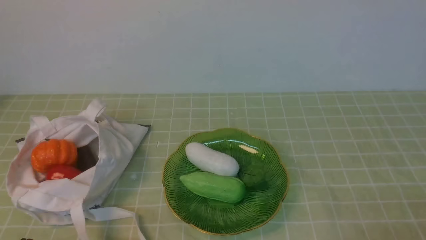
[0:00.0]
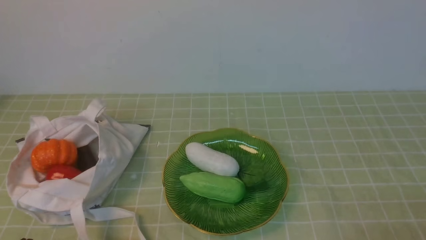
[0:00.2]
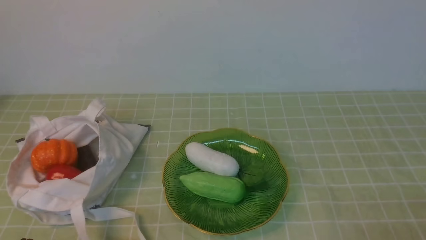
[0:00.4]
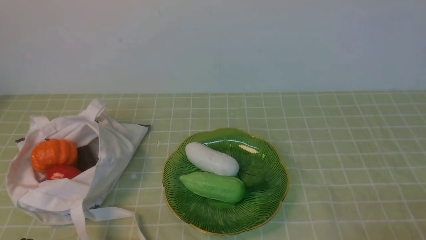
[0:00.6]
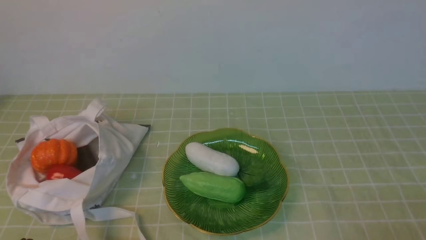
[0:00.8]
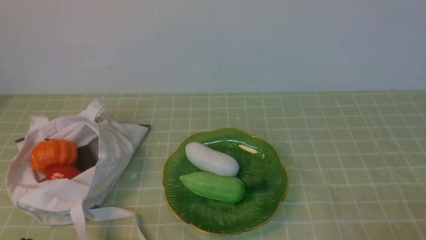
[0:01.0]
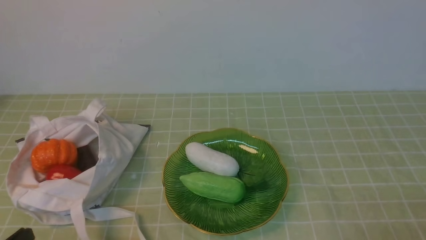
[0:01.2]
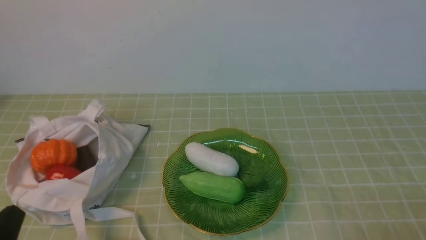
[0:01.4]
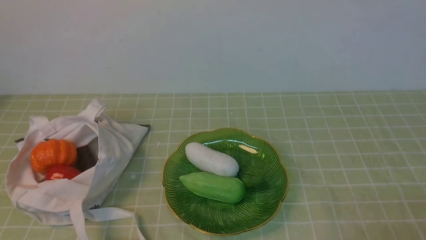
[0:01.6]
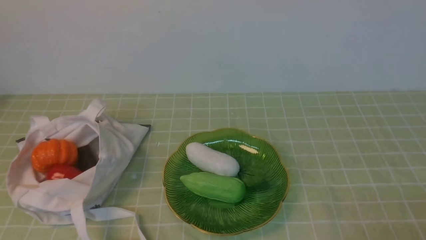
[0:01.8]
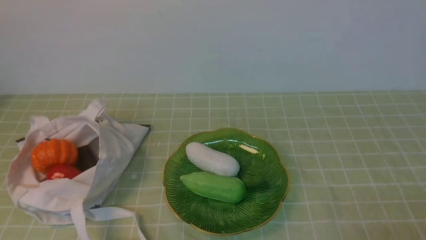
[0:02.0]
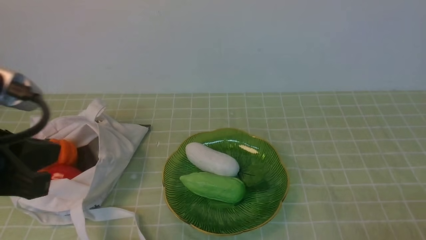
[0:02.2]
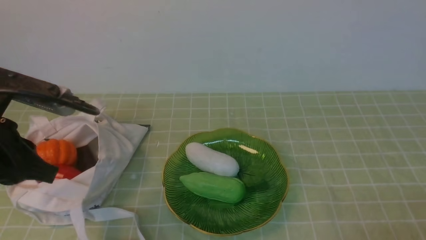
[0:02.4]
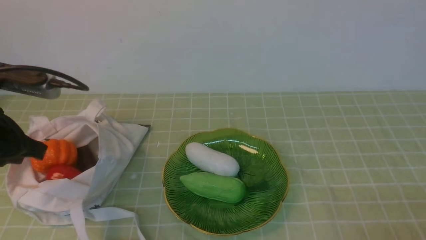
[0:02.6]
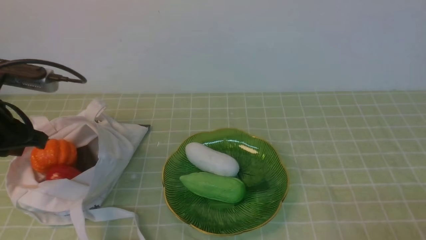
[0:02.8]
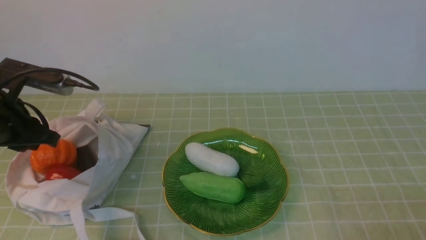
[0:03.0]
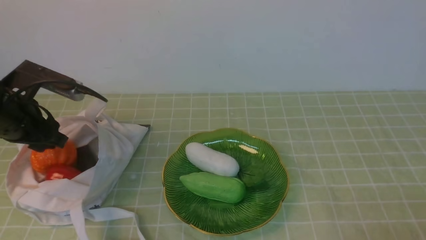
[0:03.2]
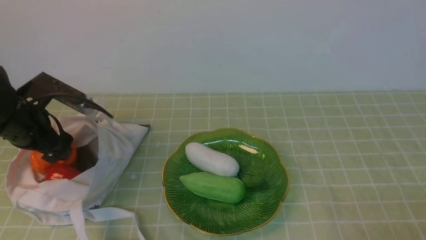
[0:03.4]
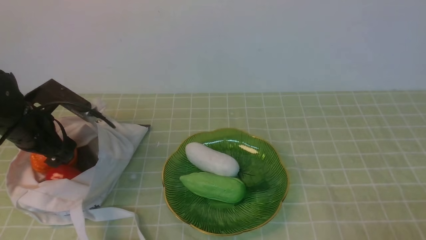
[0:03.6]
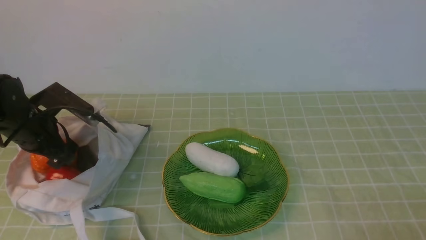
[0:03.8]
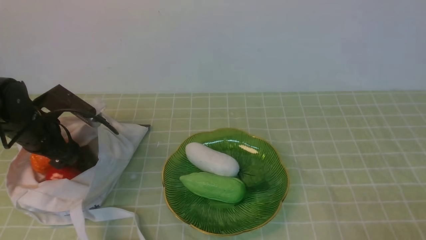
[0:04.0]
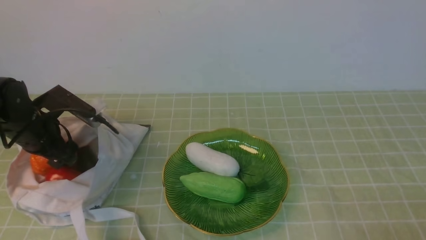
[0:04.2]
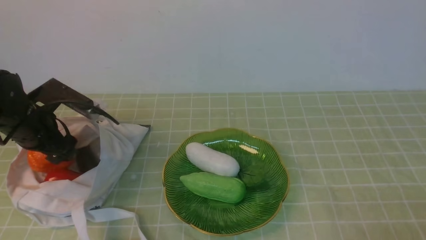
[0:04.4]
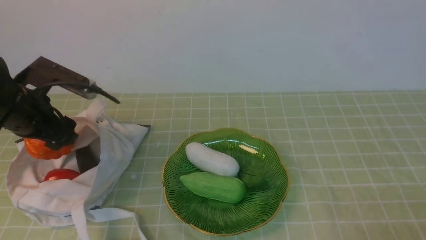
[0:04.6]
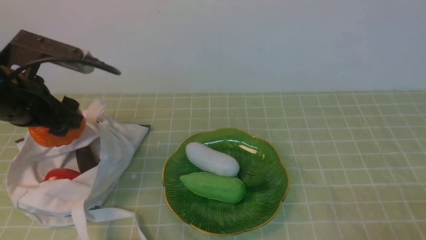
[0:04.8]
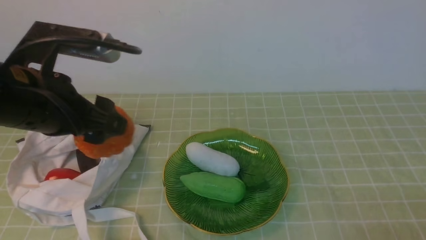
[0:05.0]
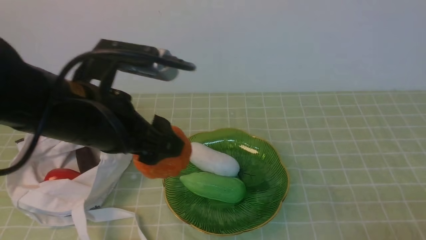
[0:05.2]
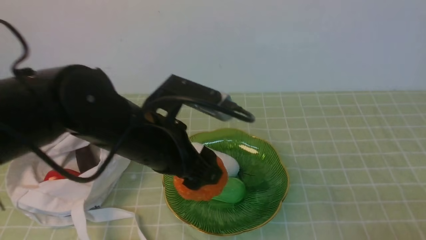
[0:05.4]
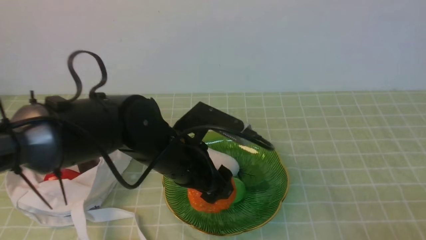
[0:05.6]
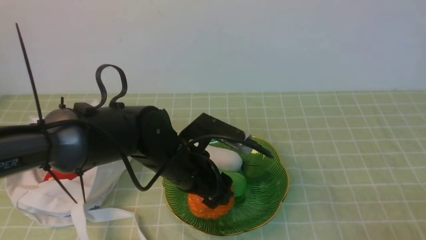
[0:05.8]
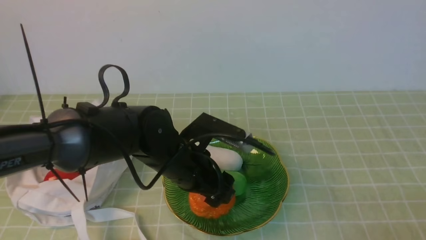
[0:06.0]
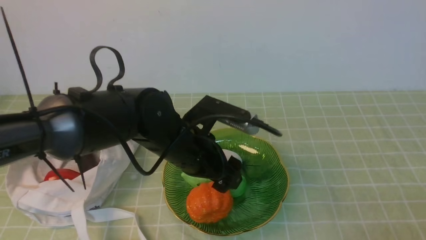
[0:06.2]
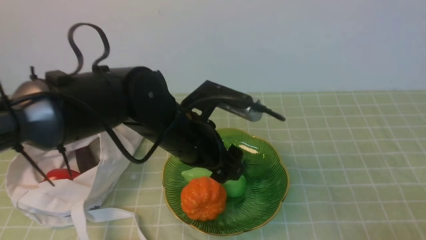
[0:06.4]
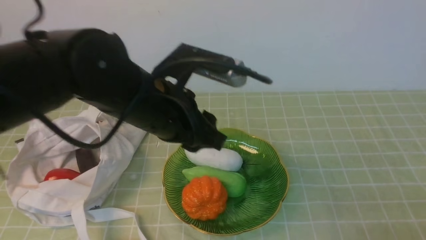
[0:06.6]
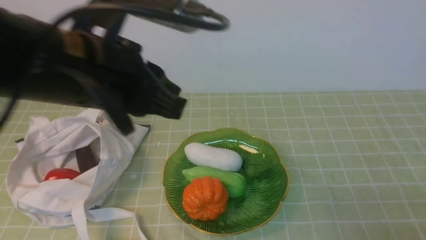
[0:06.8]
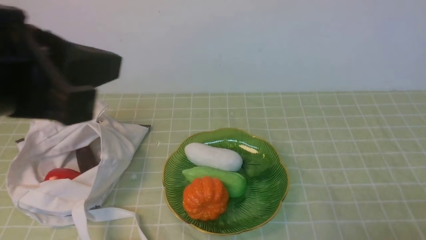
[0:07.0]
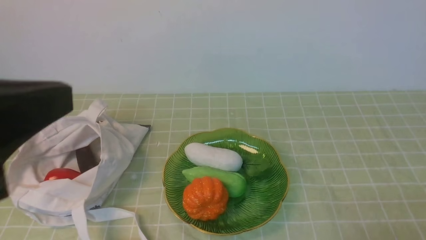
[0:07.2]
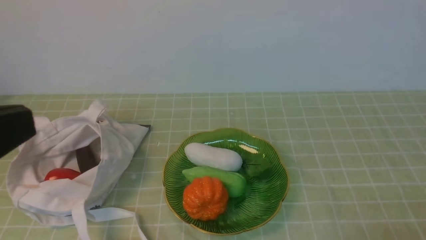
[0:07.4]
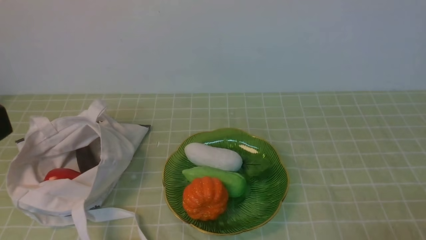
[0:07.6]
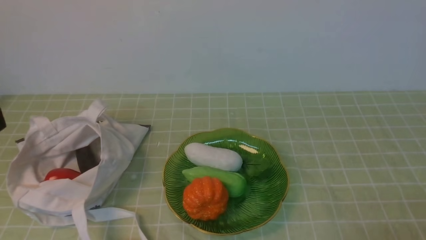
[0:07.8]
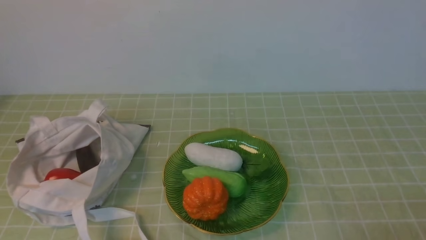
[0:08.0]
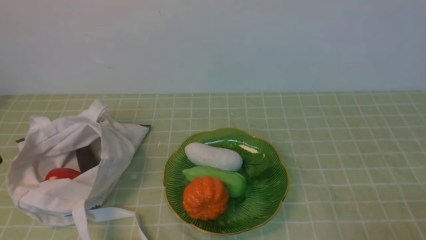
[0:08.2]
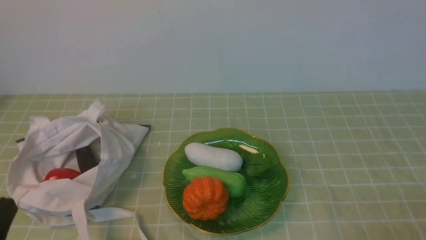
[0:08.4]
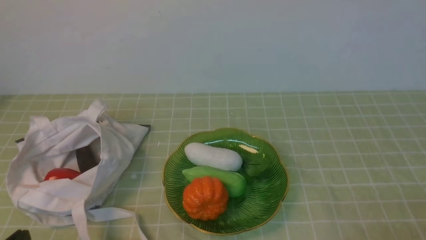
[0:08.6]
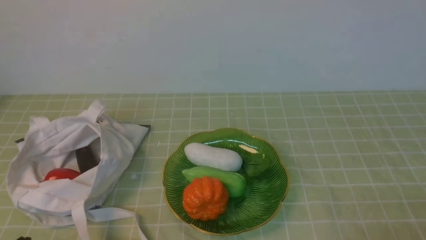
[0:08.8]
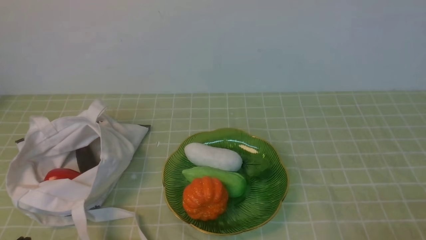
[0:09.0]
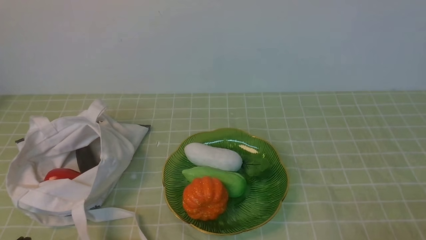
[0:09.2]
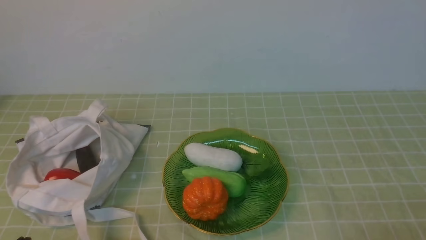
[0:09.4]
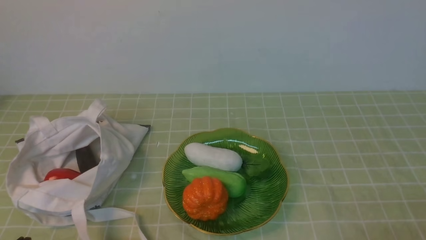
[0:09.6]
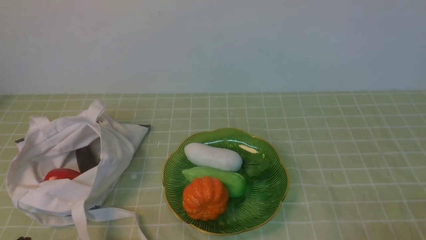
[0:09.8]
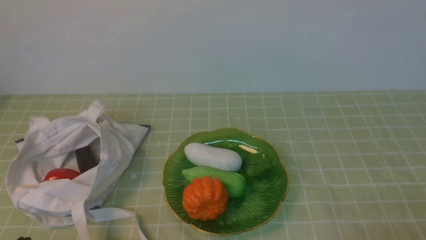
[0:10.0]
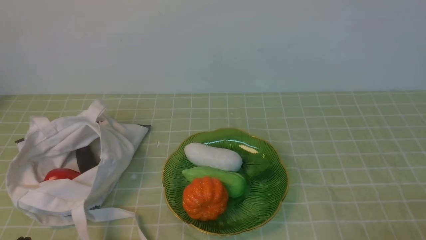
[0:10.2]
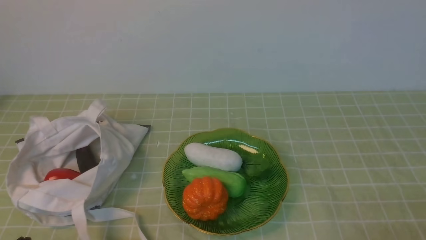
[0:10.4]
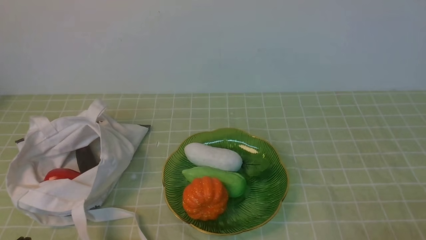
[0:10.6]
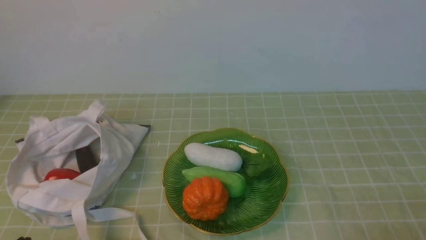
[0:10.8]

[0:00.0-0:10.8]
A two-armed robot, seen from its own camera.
Task of the whole recording: take vegetables from bag on green coffee tablecloth place on plate.
Step, 0:00.0 to 0:04.2: Grasp the pumpkin with left gripper.
Step, 0:04.4 to 0:06.2: Place the pumpkin on the plate with left gripper.
0:01.6 to 0:03.0: The left gripper moves forward, roughly 20 cm.
0:03.0 to 0:04.6: The left gripper opens.
0:04.6 to 0:06.2: The left gripper travels to the right by approximately 25 cm.
0:06.2 to 0:07.8: The left gripper is displaced backward, upward and to the left by approximately 35 cm, and closes.
0:09.2 to 0:10.8: The two grippers keep their place.

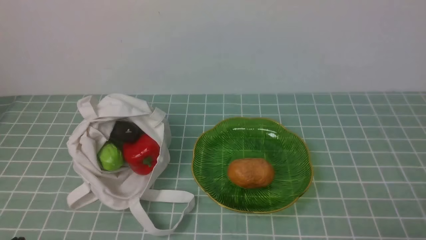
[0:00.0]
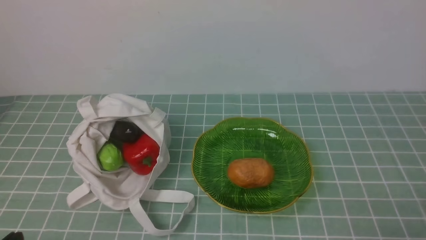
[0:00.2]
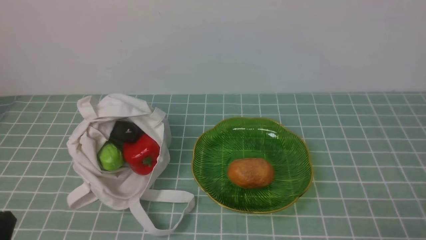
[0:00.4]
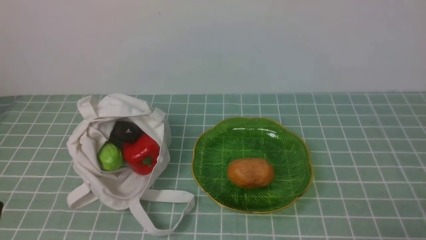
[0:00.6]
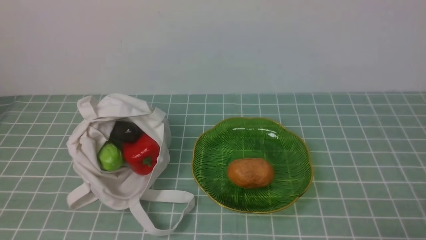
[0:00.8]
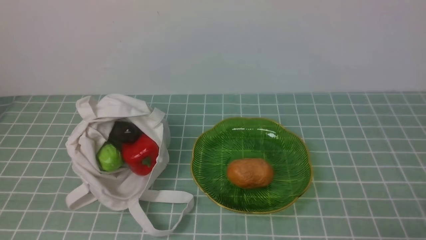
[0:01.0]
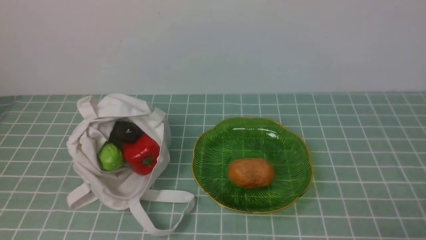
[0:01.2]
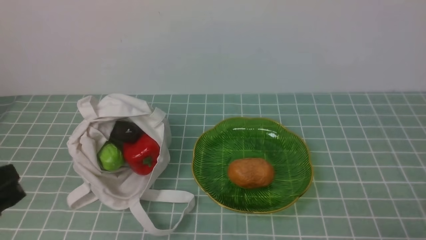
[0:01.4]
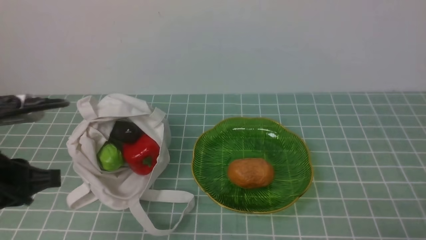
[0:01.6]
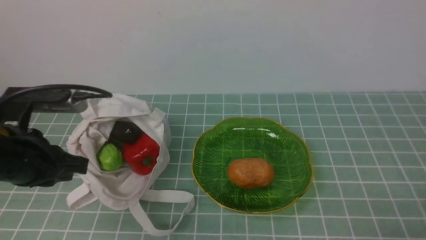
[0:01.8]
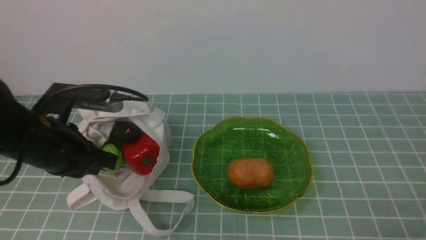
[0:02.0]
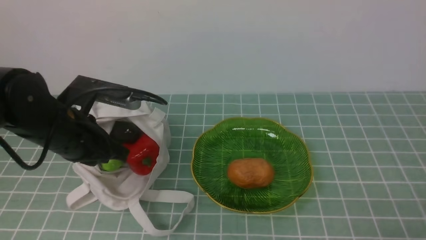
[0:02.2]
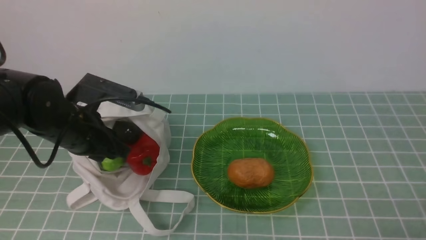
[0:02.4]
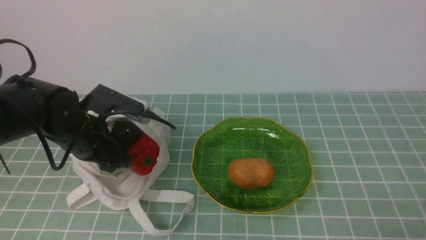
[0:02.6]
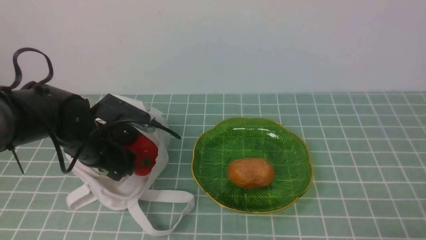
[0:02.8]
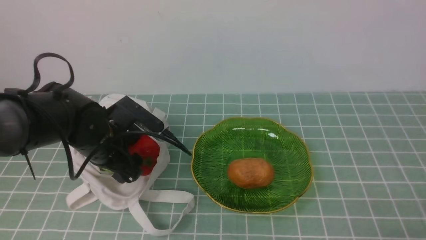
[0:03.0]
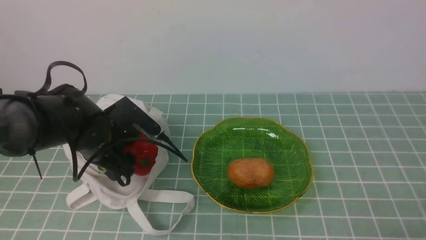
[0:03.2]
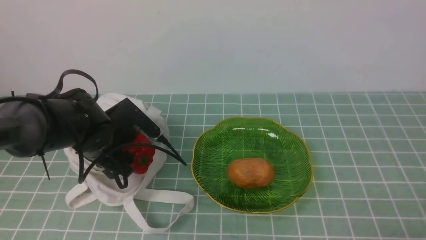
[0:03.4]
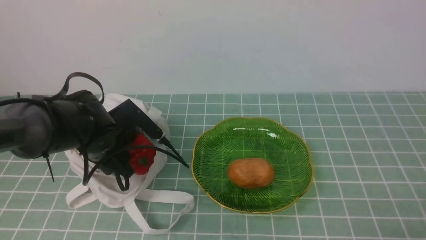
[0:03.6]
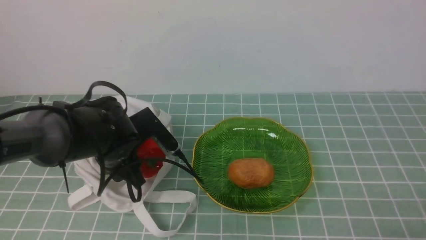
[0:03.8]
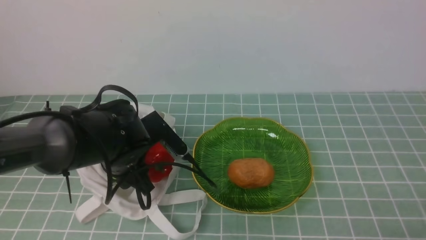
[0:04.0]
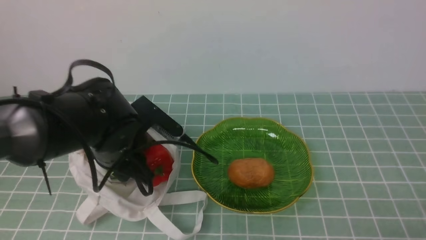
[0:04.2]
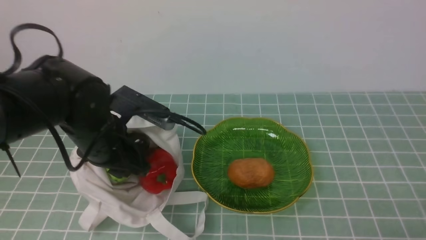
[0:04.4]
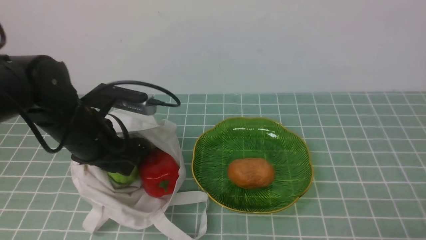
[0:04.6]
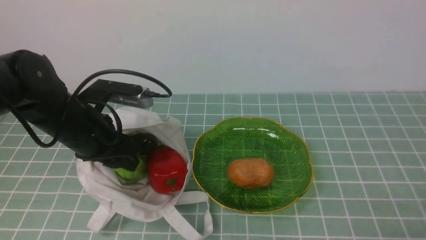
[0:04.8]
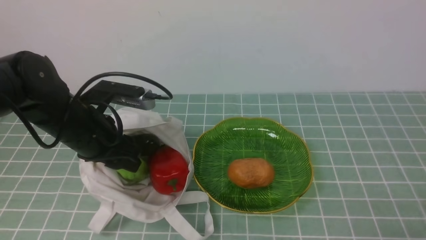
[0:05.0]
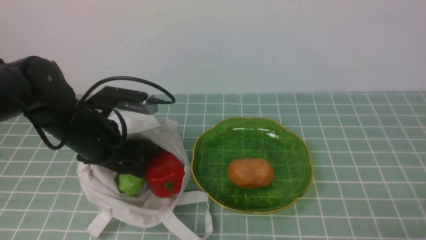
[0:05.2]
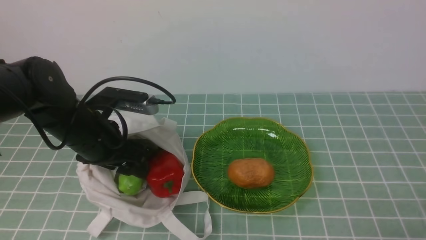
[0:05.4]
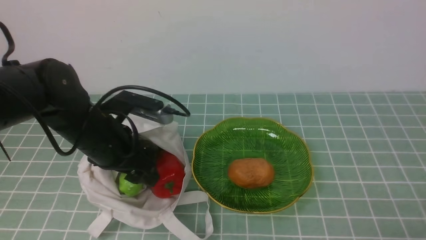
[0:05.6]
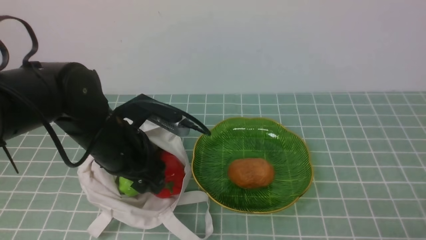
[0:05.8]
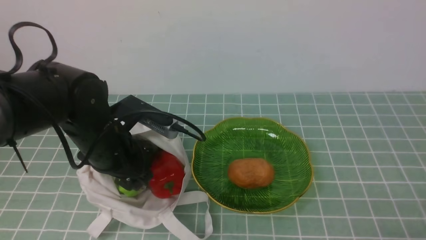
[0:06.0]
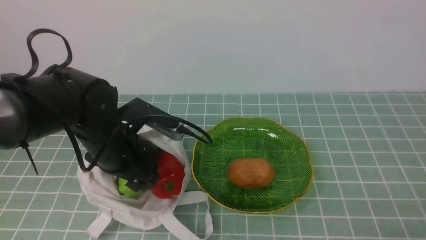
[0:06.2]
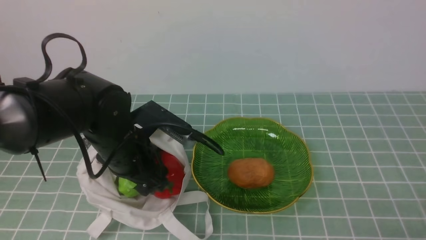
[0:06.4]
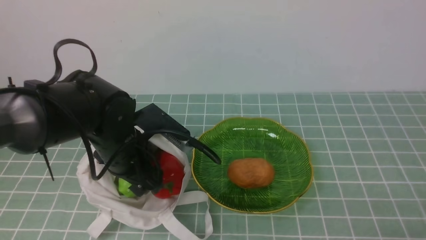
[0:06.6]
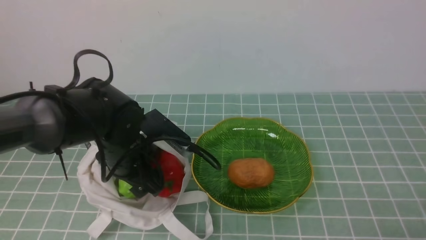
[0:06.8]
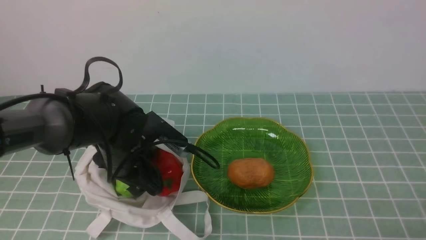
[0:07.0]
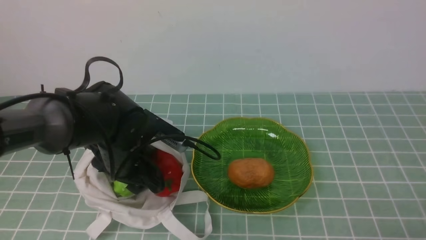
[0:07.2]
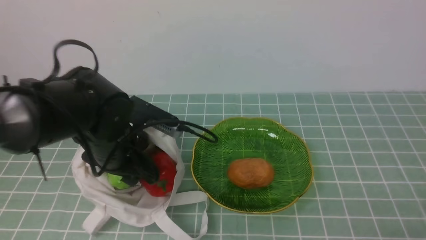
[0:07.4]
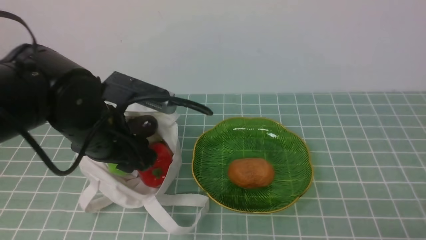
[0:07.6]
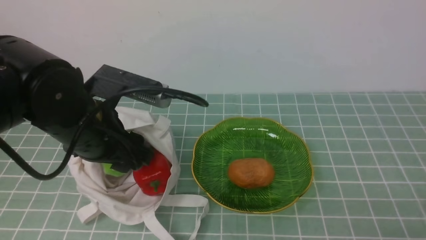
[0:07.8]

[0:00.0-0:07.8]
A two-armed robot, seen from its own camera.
Task of the whole recording: take vegetables from cloth bag on blue coffee tablecloth place on plate.
Step, 0:00.0 to 0:07.0: Grasp the bitter melon with left gripper.
0:00.0 to 0:01.6: The left gripper travels forward and upward by approximately 15 cm.
0:01.6 to 0:03.2: The left gripper travels forward, downward and to the right by about 20 cm, and opens its fingers.
0:03.2 to 0:04.6: The left gripper travels upward by some 5 cm, and closes its fingers.
0:04.6 to 0:06.2: The left gripper opens up.
0:06.2 to 0:07.8: The left gripper is displaced upward by some 5 cm.
